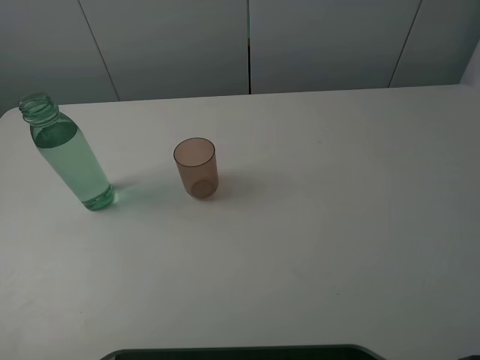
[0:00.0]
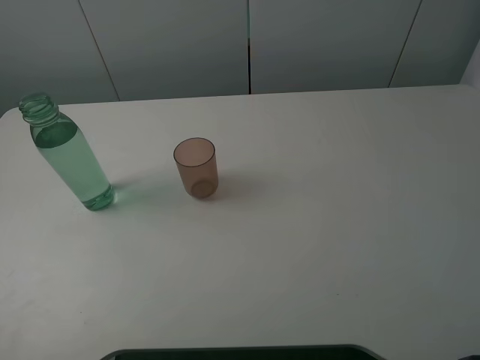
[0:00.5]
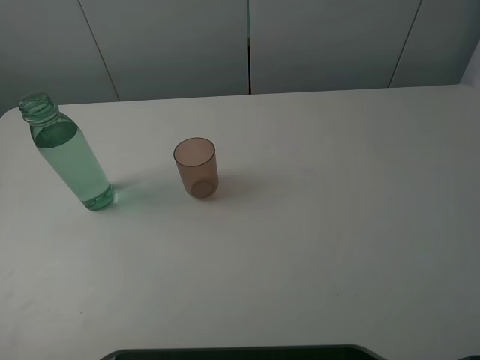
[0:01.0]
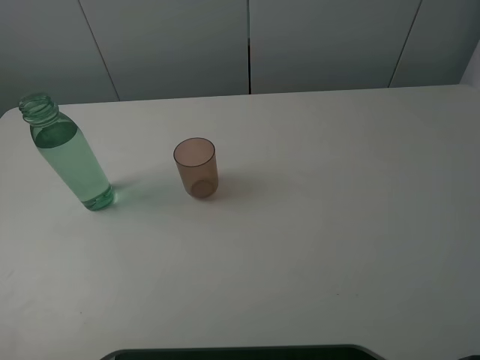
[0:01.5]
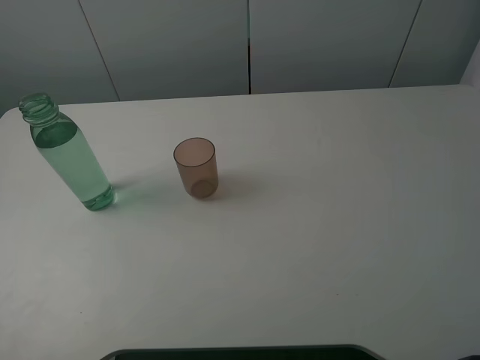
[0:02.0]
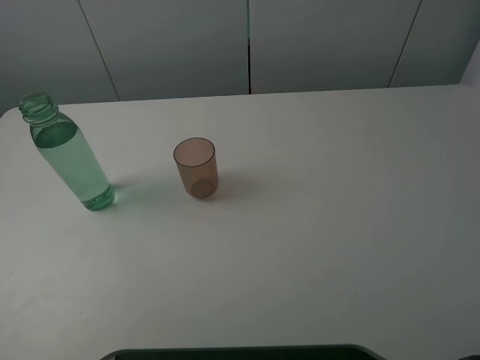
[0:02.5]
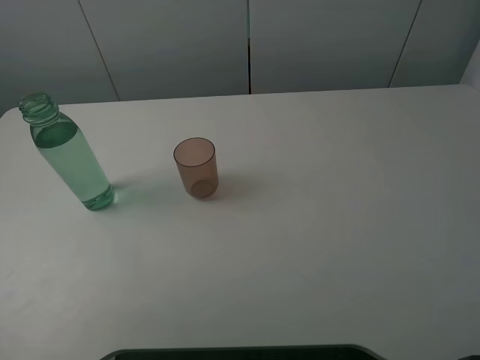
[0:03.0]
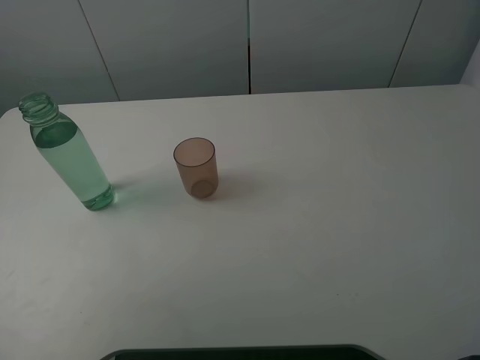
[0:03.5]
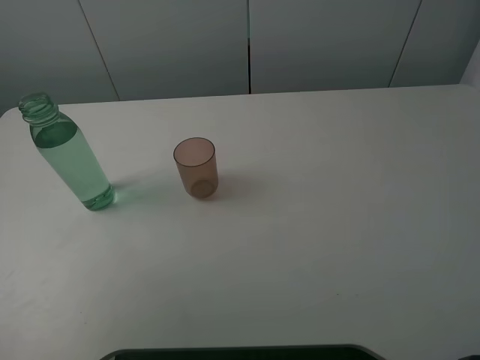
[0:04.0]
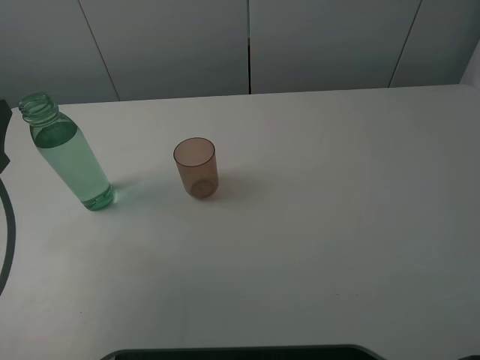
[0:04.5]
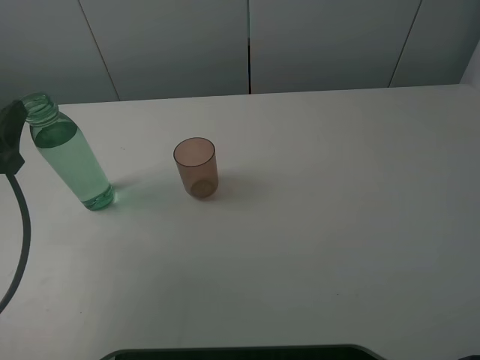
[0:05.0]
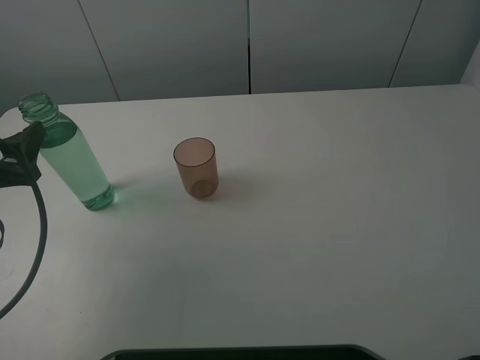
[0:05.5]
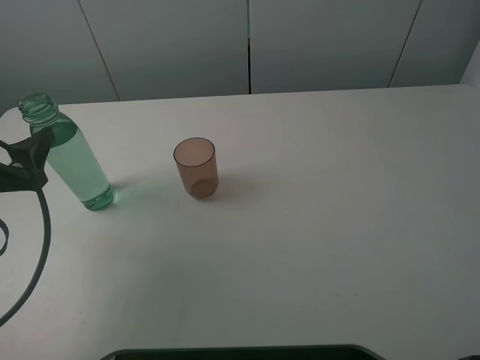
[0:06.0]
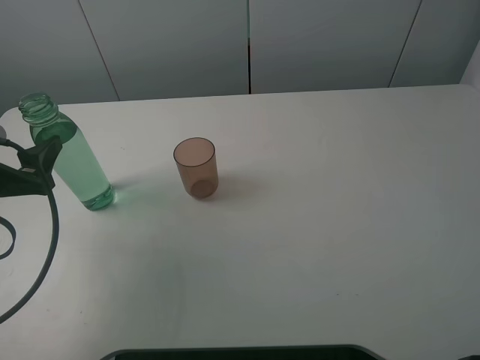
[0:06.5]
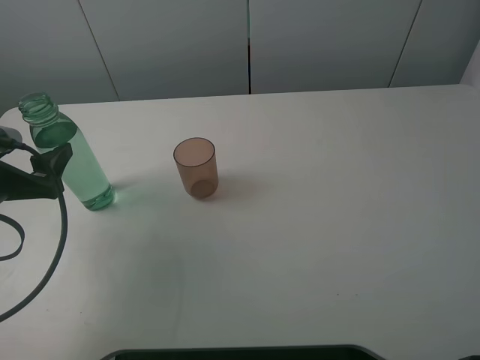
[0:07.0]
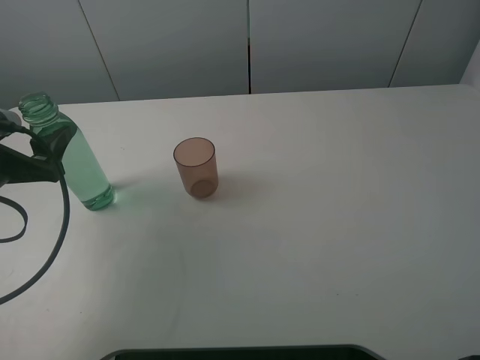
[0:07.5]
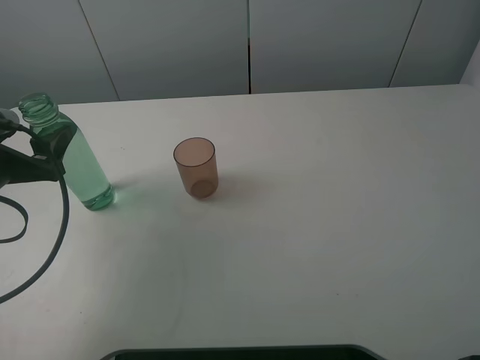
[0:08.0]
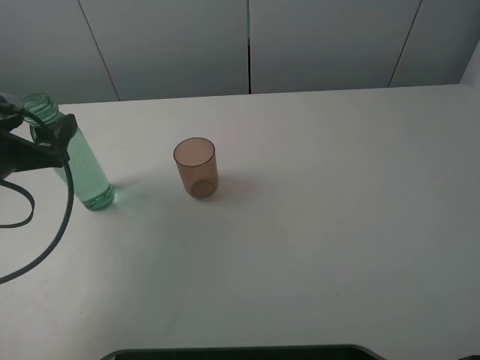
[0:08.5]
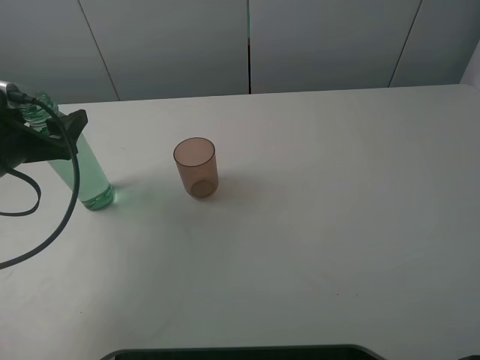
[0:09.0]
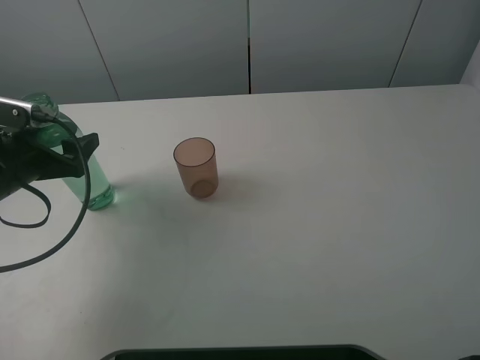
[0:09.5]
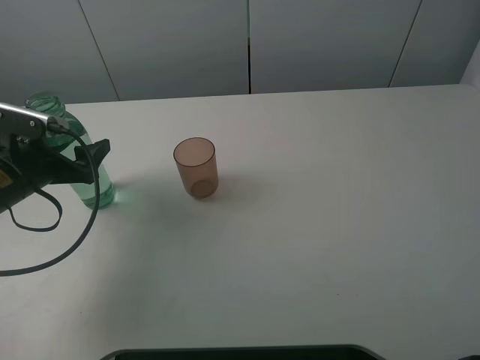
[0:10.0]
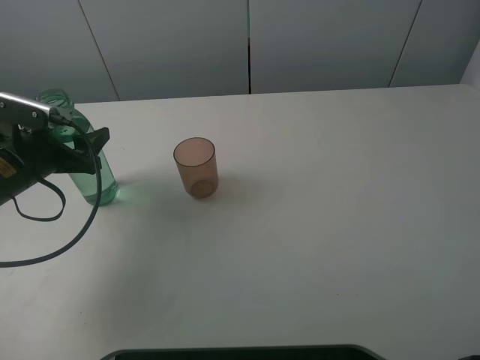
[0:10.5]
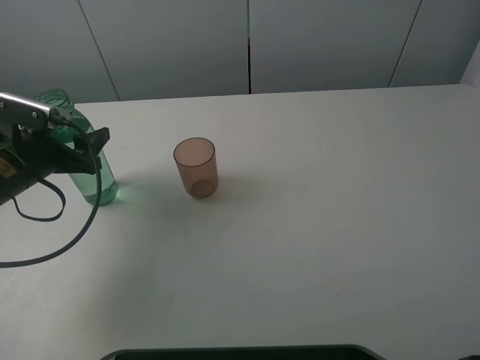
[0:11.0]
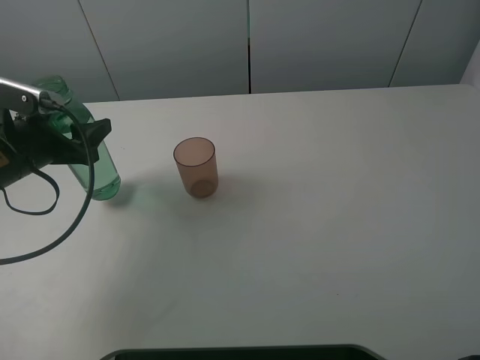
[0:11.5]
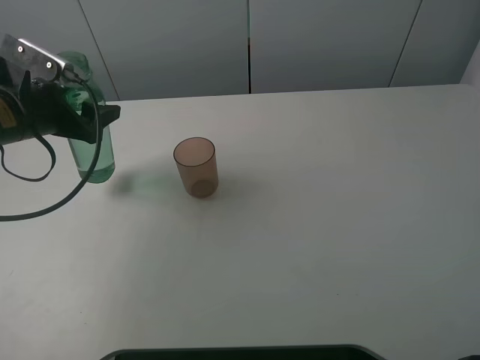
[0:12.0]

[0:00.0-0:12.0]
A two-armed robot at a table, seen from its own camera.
Task of the whole recording: pick up the bottle filled with water and pour it into the pink cup.
Step, 0:00.0 to 0:11.0: Grasp the green bottle with the left gripper.
0:04.0 to 0:06.0: The left gripper is displaced downward by some 5 cm.
0:06.0 to 0:08.0: The grippers make only small movements.
0:08.0 to 0:10.0: The left gripper moves about 5 cm.
0:10.0 to 0:12.0: The left gripper shifts roughly 5 cm upward, and closes.

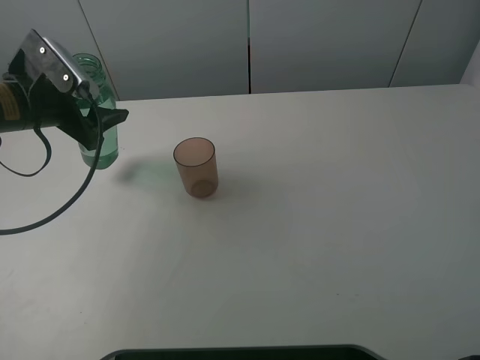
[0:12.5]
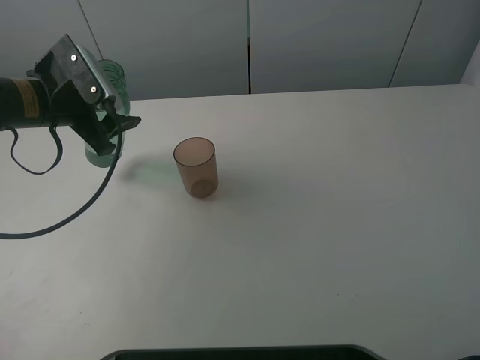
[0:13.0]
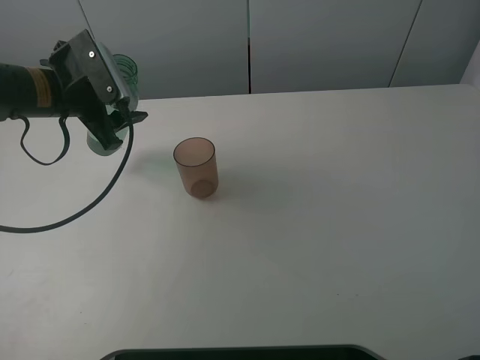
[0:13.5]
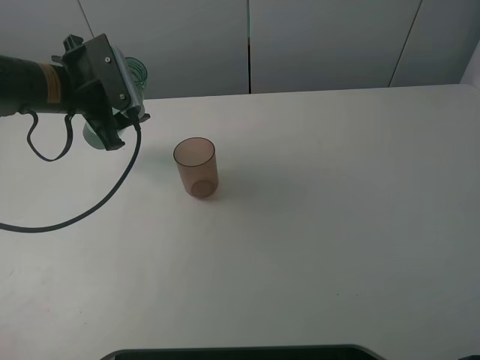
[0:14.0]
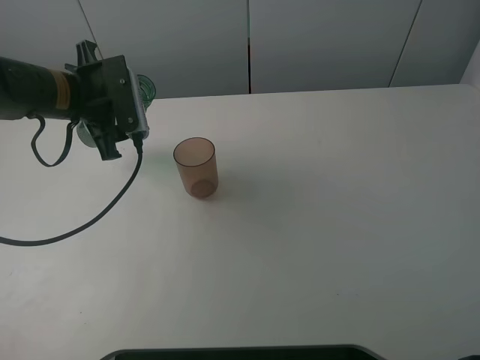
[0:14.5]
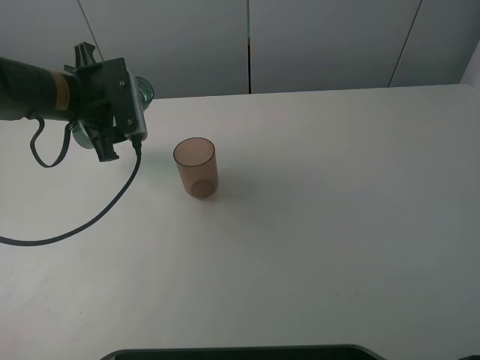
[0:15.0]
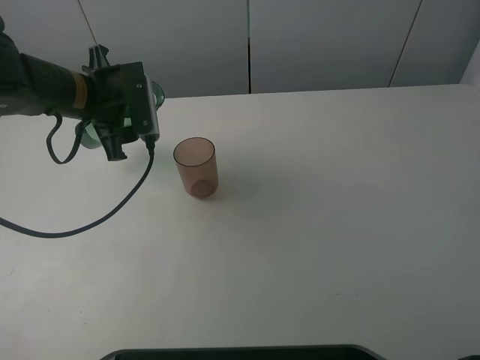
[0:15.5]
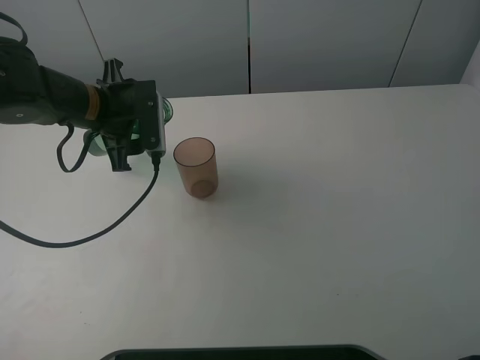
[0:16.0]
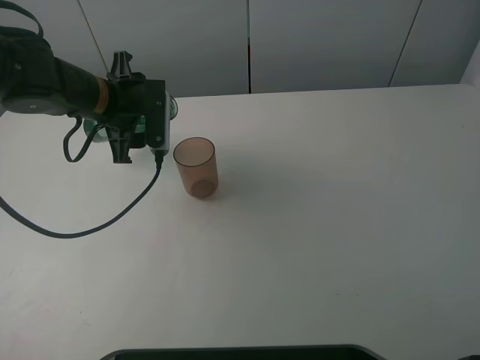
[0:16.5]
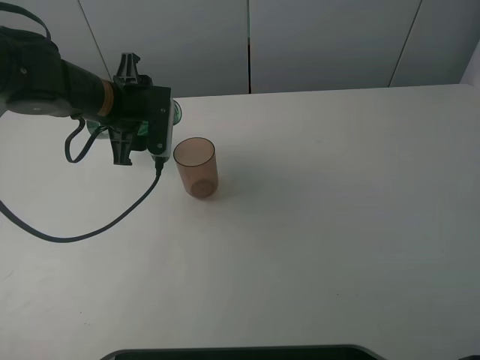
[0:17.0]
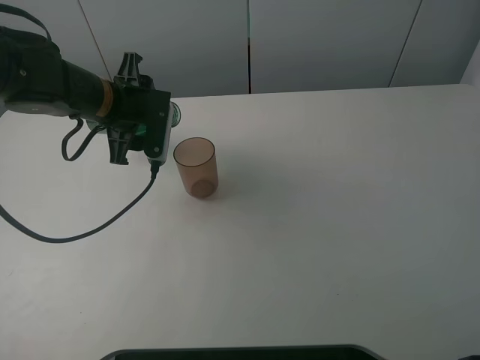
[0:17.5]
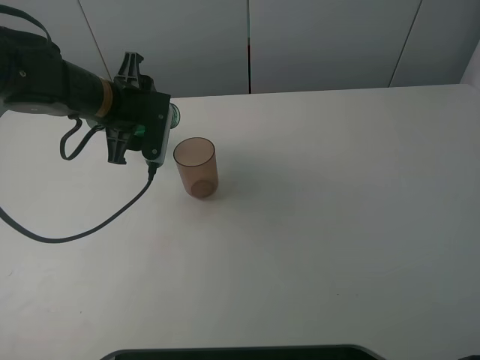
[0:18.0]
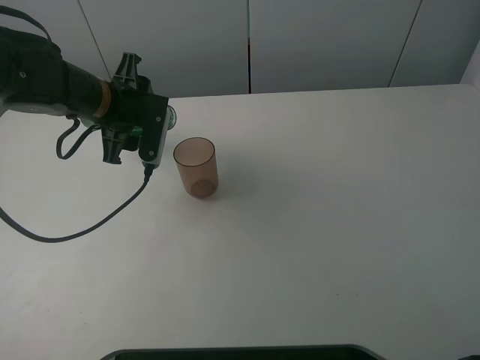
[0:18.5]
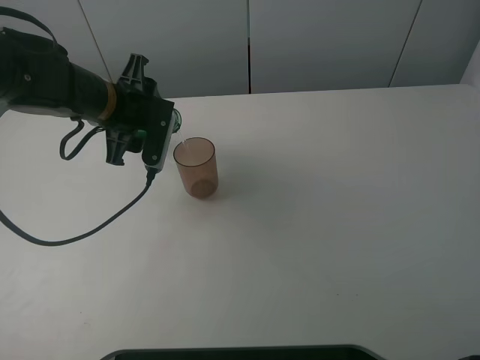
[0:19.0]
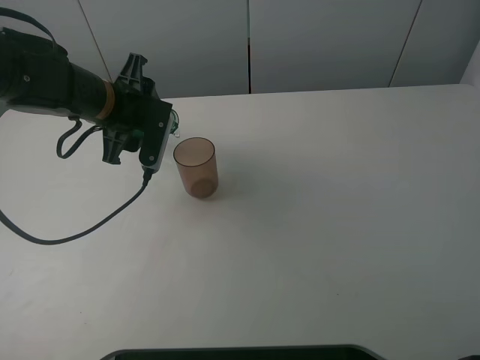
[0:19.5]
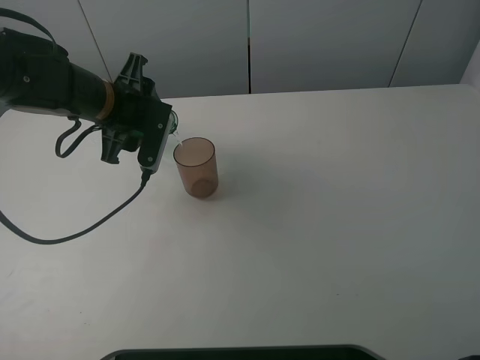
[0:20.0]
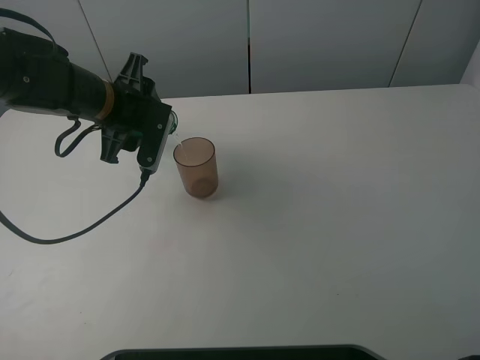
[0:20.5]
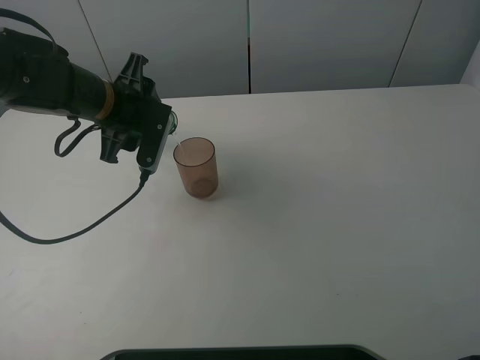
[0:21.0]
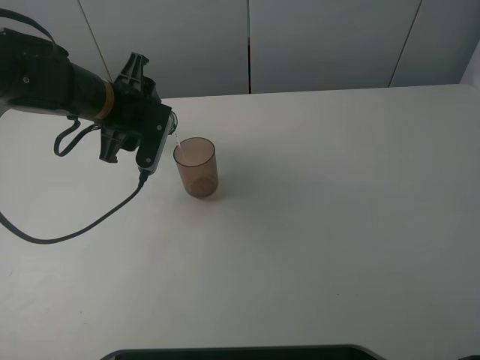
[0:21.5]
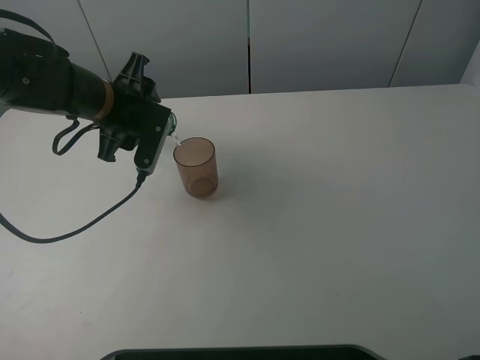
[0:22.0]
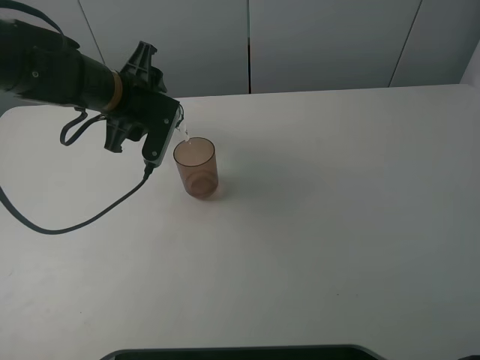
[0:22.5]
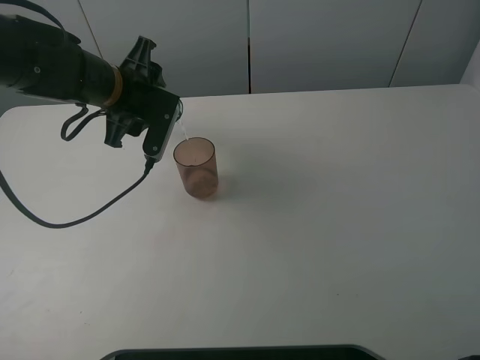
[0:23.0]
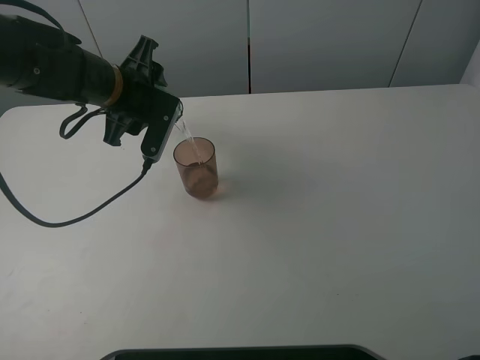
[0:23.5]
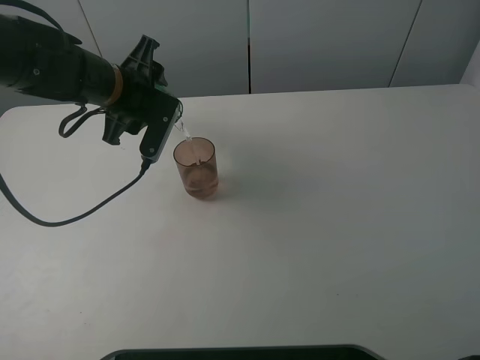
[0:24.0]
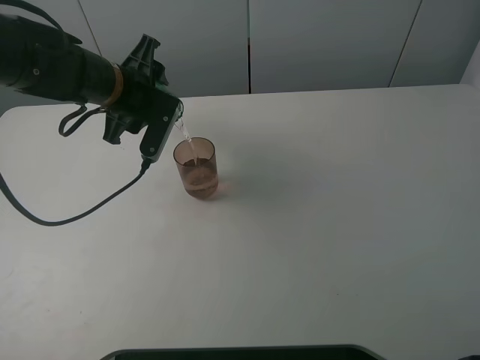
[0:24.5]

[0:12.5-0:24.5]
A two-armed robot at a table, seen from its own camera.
Task of the whole recording: pick up the bottle filled with water and pour it into the pink cup.
0:12.5 to 0:14.5: The left gripper shifts roughly 5 cm to the right.
0:14.5 to 0:16.5: The grippers move only a little.
0:16.5 to 0:20.5: The grippers make only small movements.
0:20.5 to 0:24.5: The grippers make only small movements.

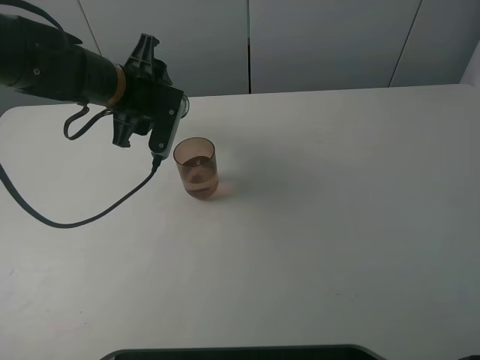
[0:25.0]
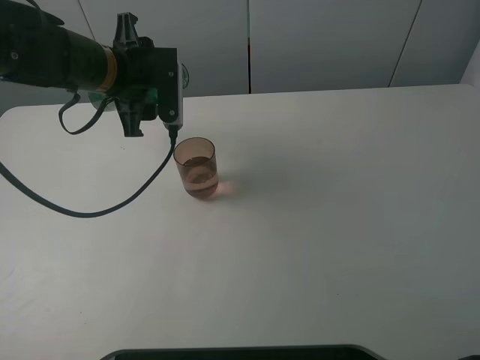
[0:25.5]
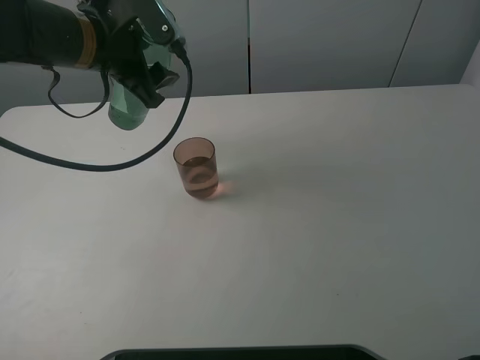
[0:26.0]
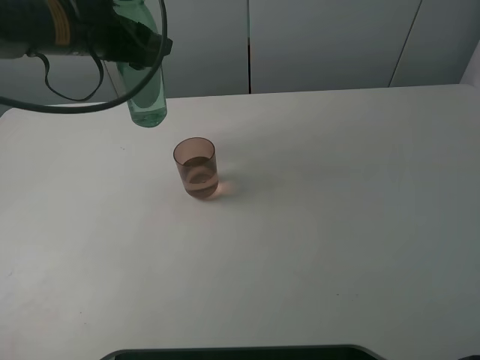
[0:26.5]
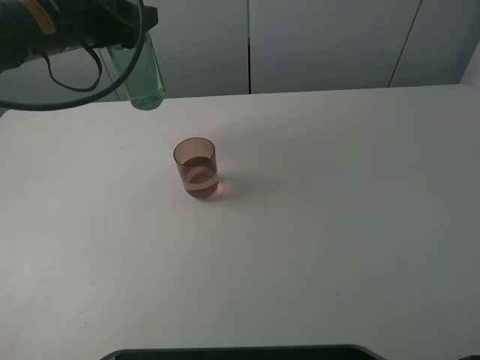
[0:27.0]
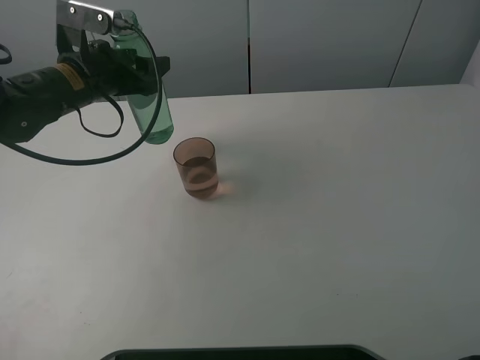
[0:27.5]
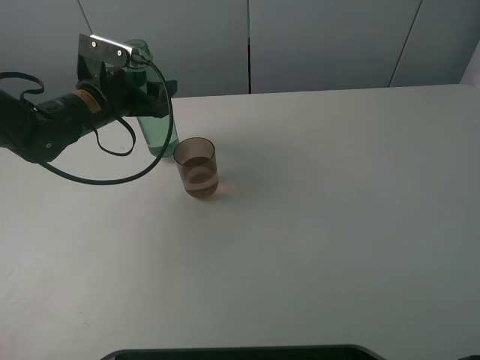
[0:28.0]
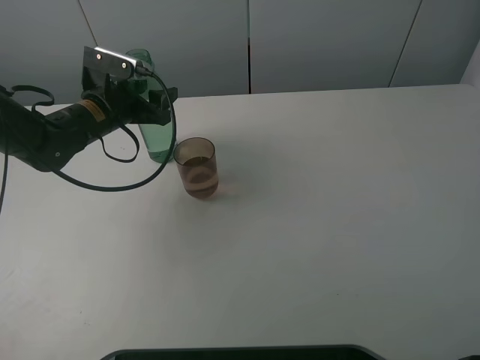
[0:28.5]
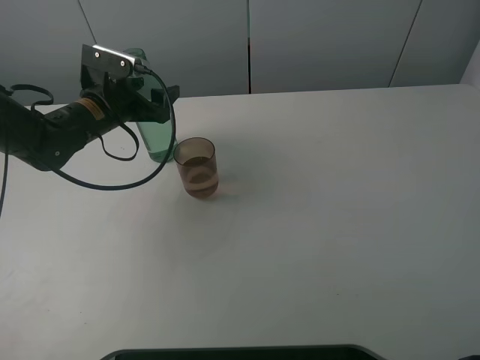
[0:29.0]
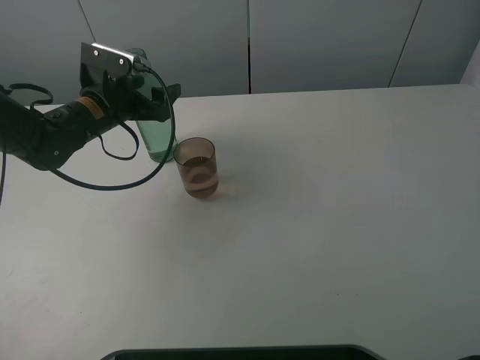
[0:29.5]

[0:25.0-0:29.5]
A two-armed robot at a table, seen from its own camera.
Task of the whole recording: pick up the bottle filled with water and pour it into the pink cup.
0:25.0 to 0:27.0: The left gripper goes about 10 cm upward and to the left.
0:27.0 to 0:29.5: The left gripper goes approximately 10 cm downward, and opens.
